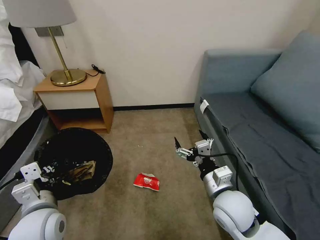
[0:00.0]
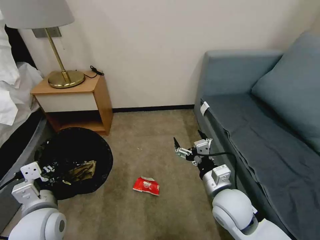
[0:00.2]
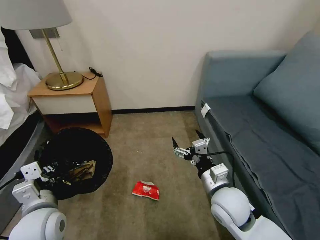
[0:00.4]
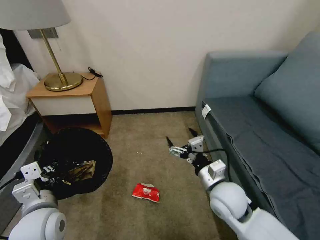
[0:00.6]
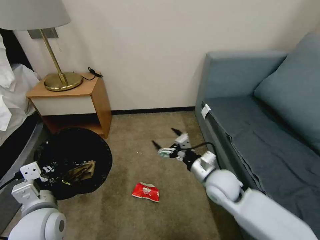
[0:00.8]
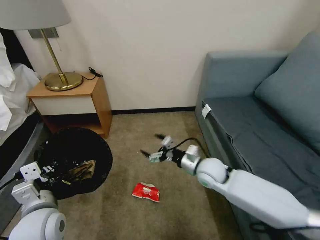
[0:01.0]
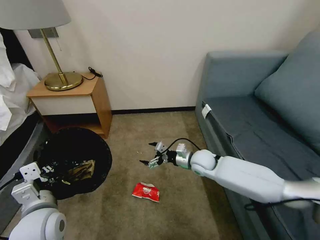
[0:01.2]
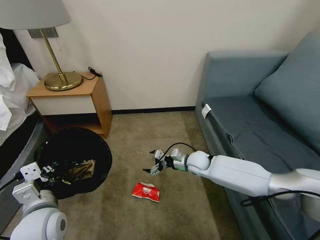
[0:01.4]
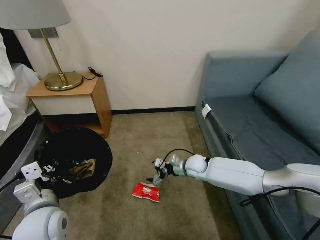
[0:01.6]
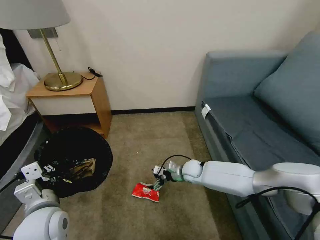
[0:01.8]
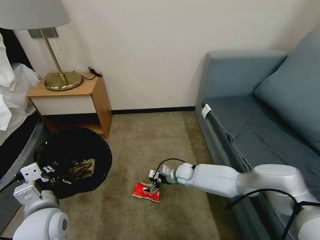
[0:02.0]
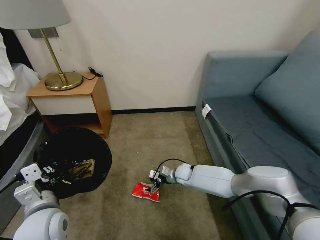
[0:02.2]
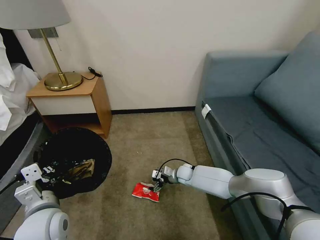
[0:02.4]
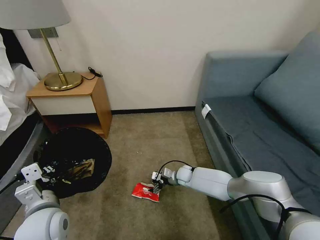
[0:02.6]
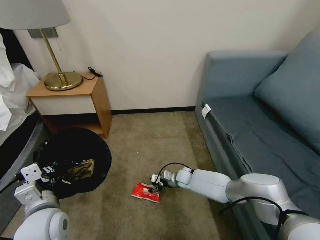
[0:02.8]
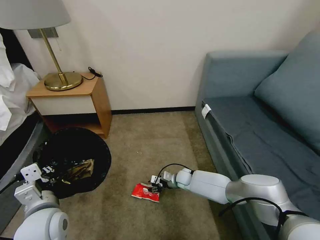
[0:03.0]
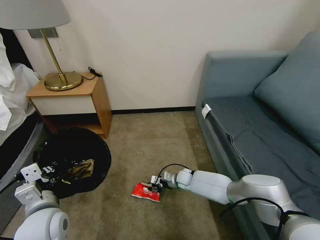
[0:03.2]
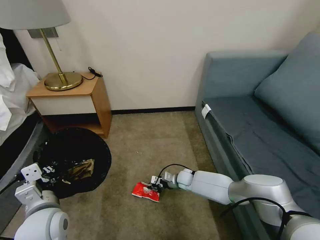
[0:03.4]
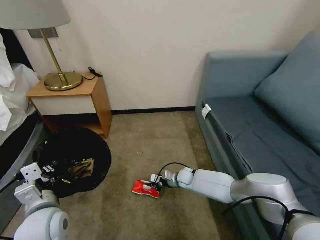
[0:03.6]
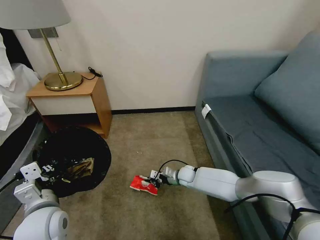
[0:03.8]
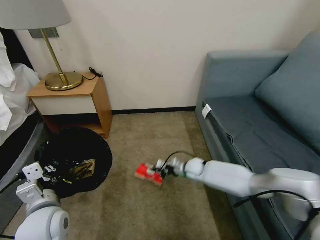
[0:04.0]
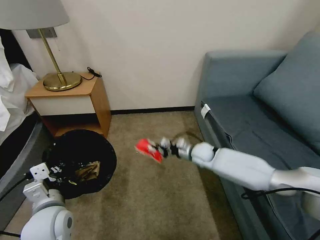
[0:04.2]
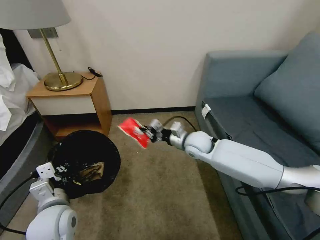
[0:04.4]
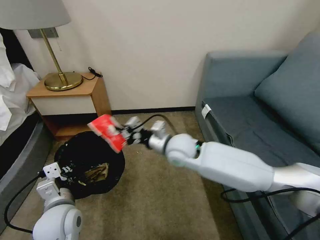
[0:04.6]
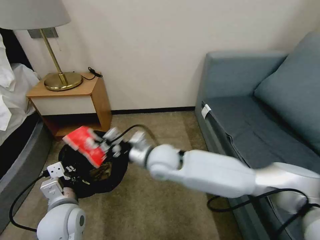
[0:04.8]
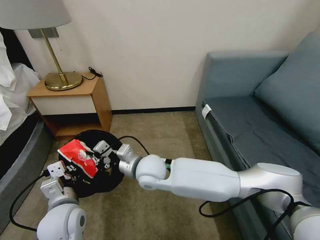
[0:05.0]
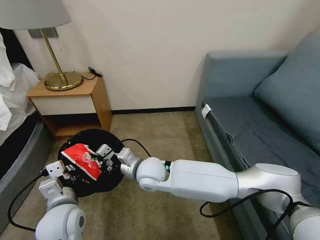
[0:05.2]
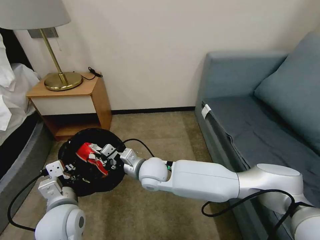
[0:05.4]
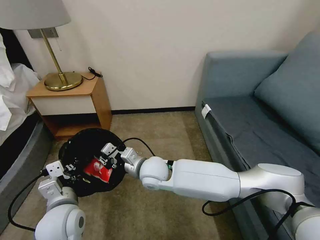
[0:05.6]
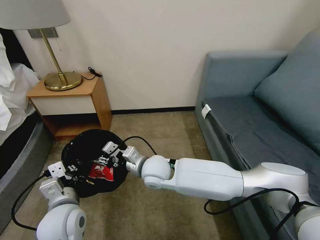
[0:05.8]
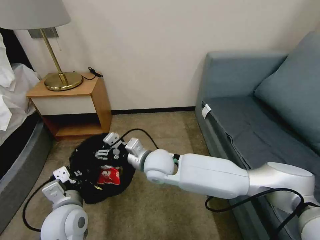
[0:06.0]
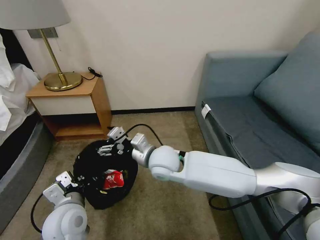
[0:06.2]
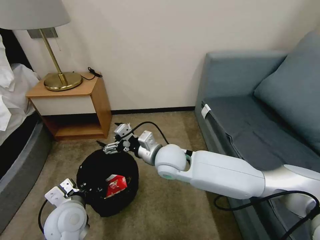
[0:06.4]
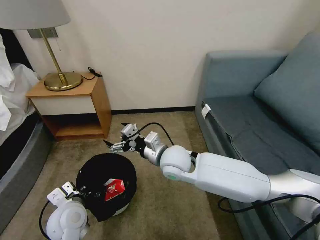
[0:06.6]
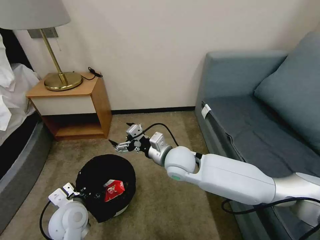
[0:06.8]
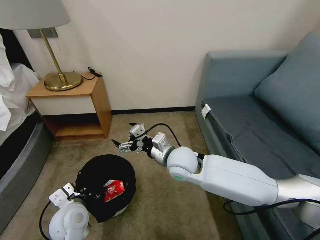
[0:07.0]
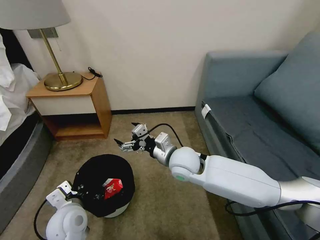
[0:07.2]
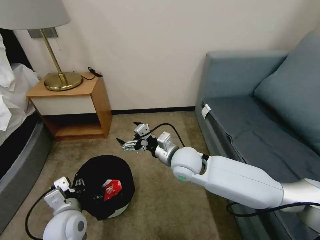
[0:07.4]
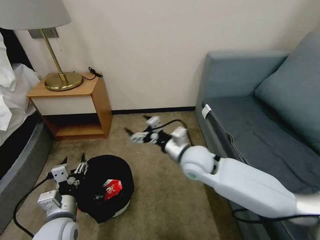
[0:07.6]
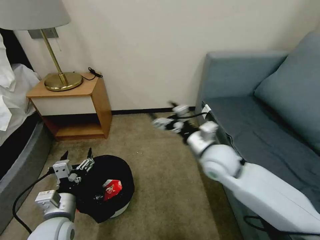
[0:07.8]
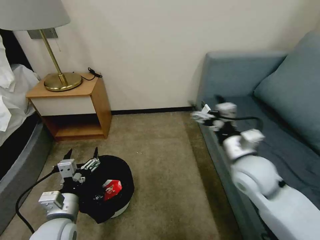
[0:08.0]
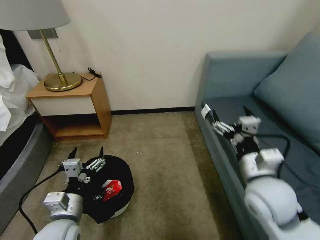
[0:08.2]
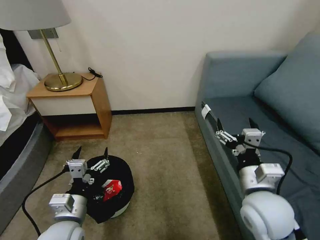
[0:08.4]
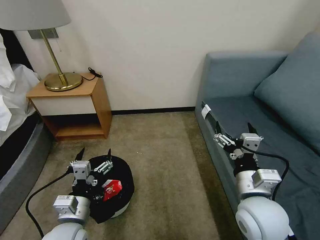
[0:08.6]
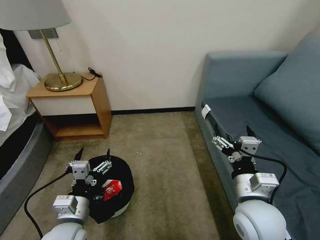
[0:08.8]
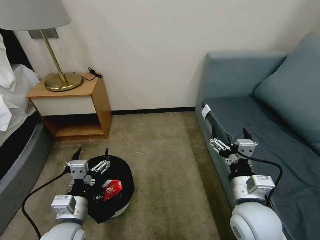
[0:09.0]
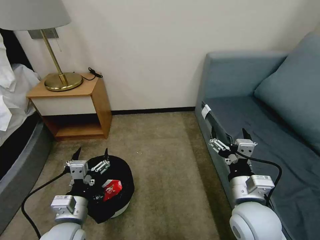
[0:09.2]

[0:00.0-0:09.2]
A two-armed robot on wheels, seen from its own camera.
Task of the whole recording: Pick up the trash bin, then pick up the garbage on the floor and place it into the trash bin.
0:00.0 to 0:01.6: The right gripper is displaced forward and downward by roughly 25 cm.
0:01.6 to 0:03.0: The right gripper goes approximately 10 cm downward, and closes.
0:03.0 to 0:04.6: The right gripper shifts roughly 30 cm upward, and closes up.
0:04.6 to 0:06.2: The right gripper shifts roughly 5 cm to the left, and opens.
0:06.2 to 0:07.6: The left gripper opens up, while the right gripper moves to the right, approximately 10 cm.
0:07.6 to 0:09.2: The right gripper moves backward and to the right, approximately 20 cm.
